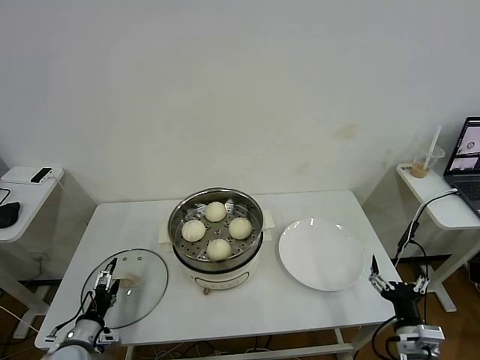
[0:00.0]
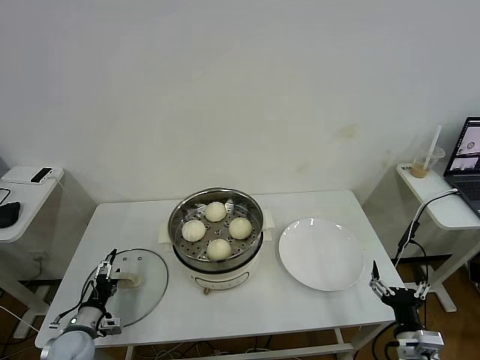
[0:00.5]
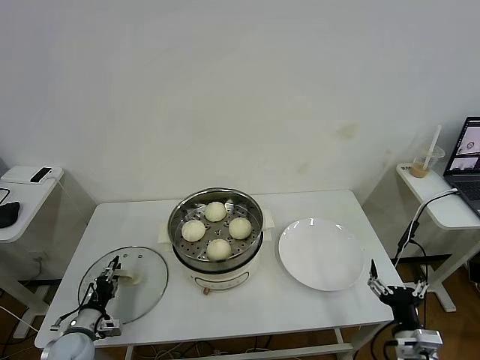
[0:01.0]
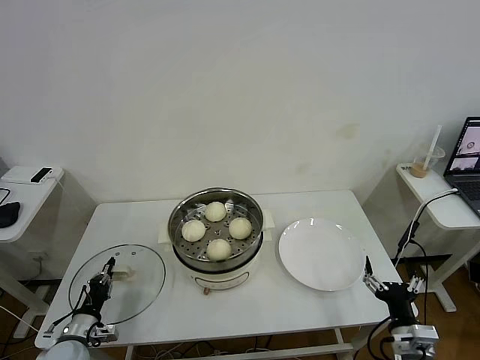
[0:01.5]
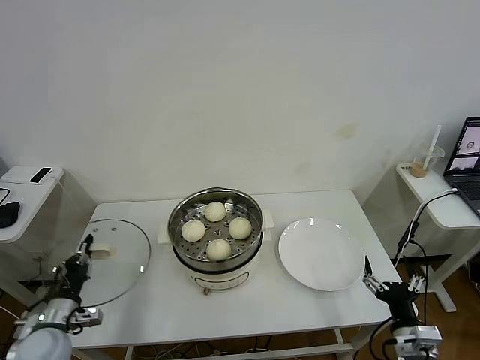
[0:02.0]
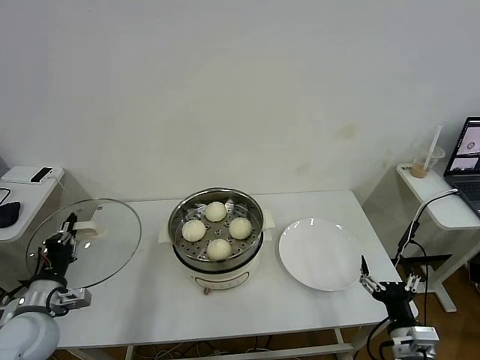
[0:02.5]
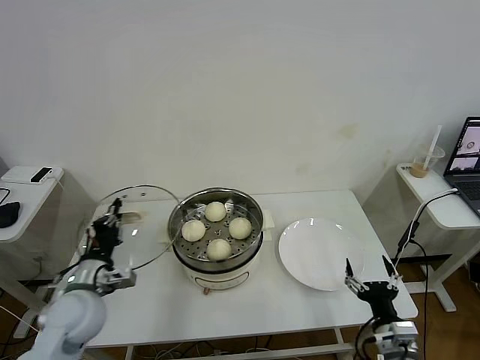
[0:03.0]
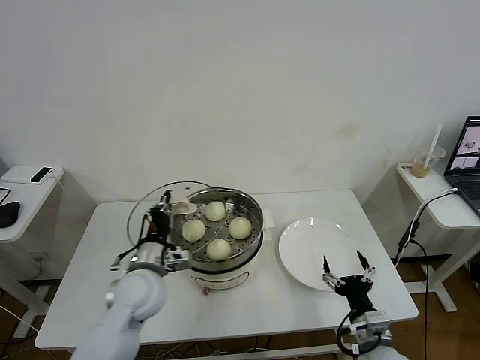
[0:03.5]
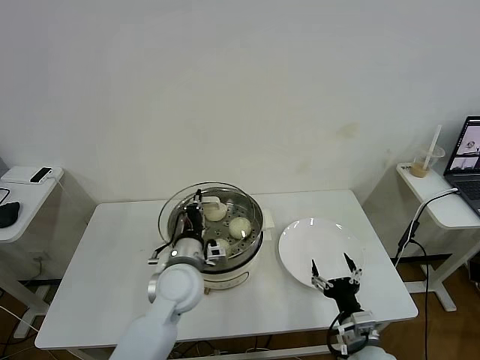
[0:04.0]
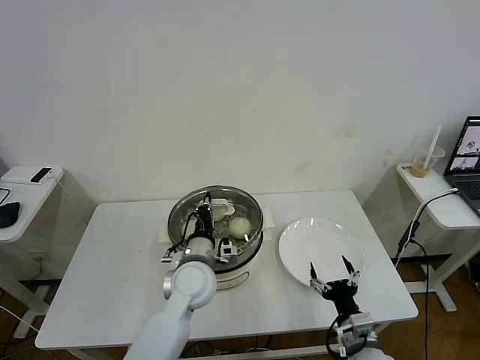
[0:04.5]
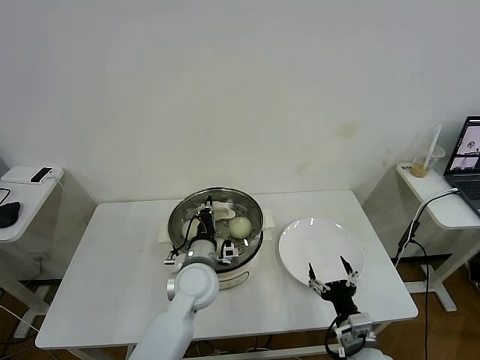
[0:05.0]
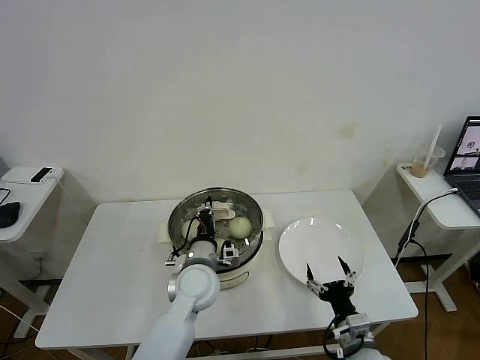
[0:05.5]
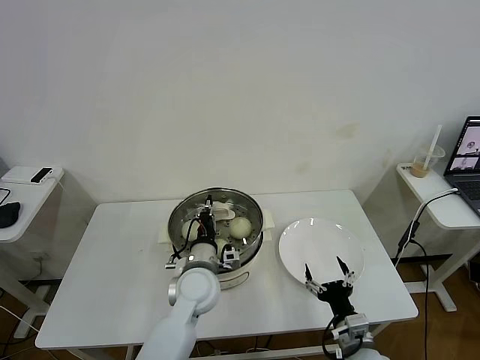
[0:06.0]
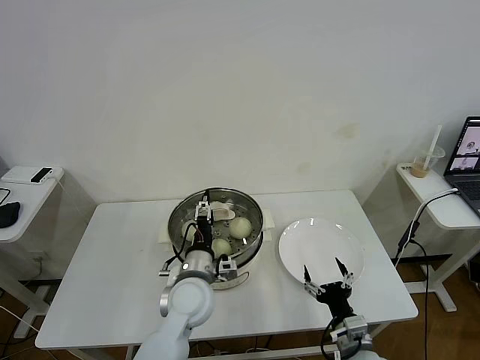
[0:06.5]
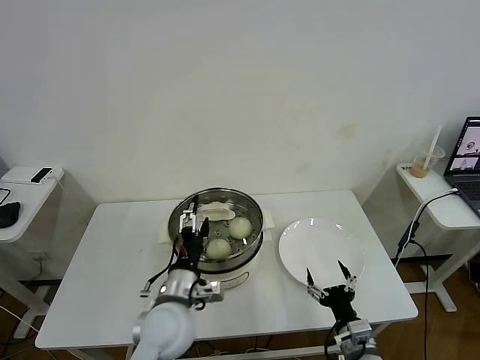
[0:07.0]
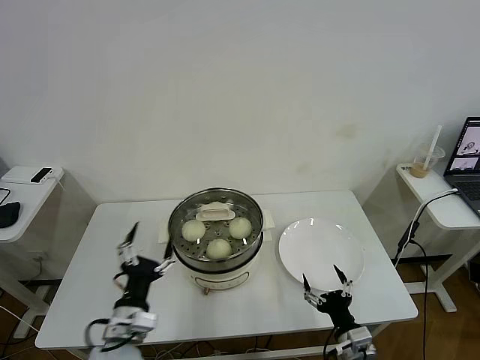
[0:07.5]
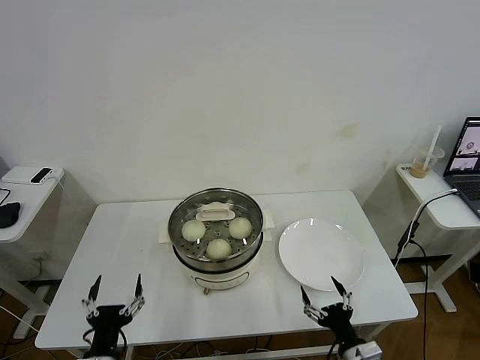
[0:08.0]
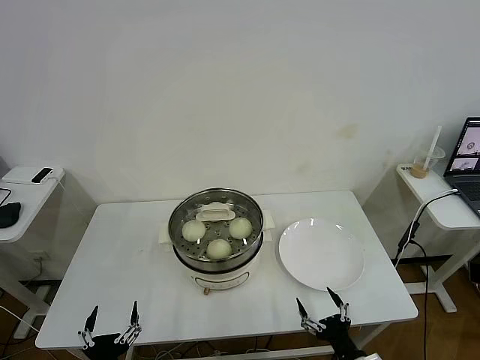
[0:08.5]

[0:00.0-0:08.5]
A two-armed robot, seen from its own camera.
Task of the whole recording: take steamed baozi put them in steamer then cover it.
Step, 0:01.5 to 0:06.5: Place the pot lid on the steamer with left gripper.
0:00.0 to 0:02.0: The left gripper goes roughly 10 cm upward, and closes its fingers.
0:02.0 to 0:04.0: The right gripper heads to the left, covering approximately 5 cm. The left gripper travels to the right by approximately 25 cm.
0:04.0 to 0:06.5: The left gripper opens.
0:06.5 to 0:08.5: The right gripper is displaced backward by some 5 cm; the left gripper is displaced backward and to the left by about 30 cm.
